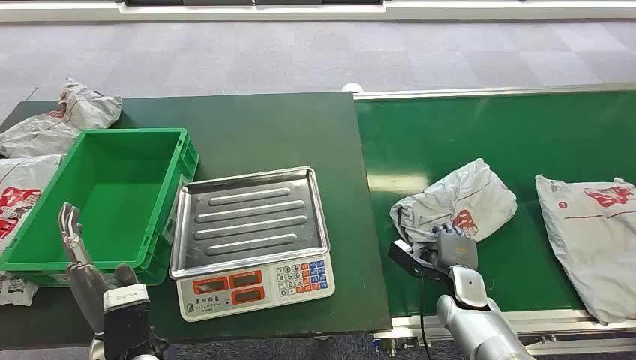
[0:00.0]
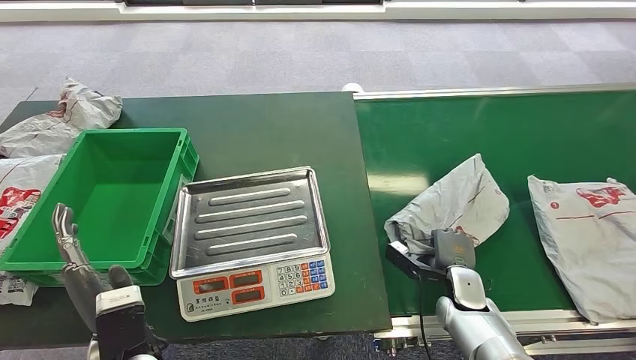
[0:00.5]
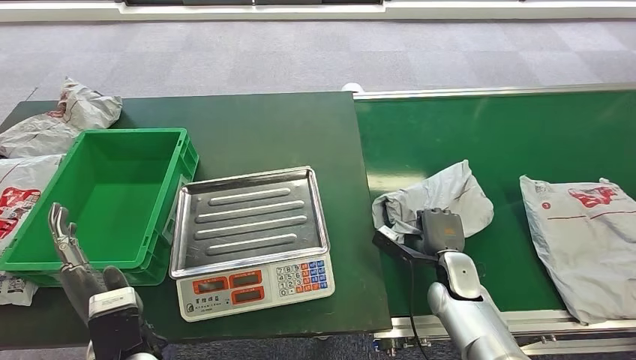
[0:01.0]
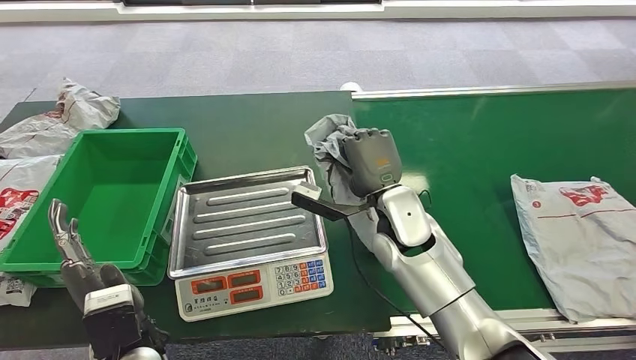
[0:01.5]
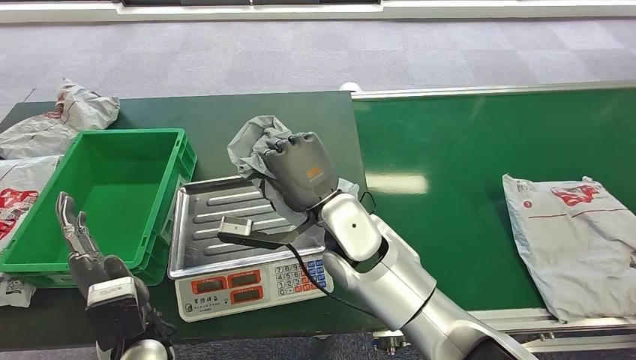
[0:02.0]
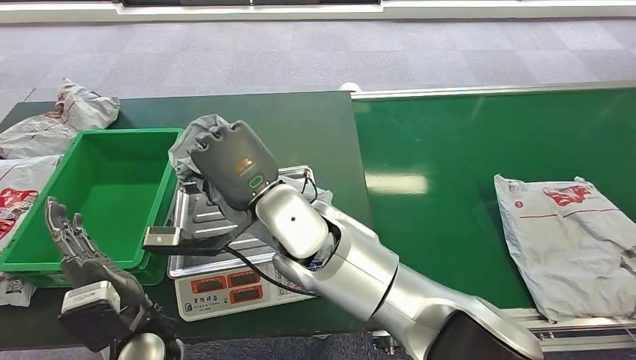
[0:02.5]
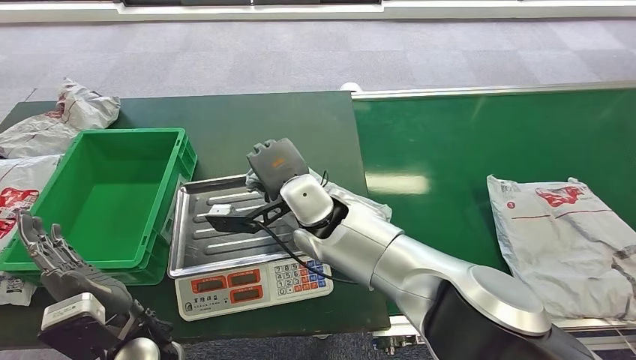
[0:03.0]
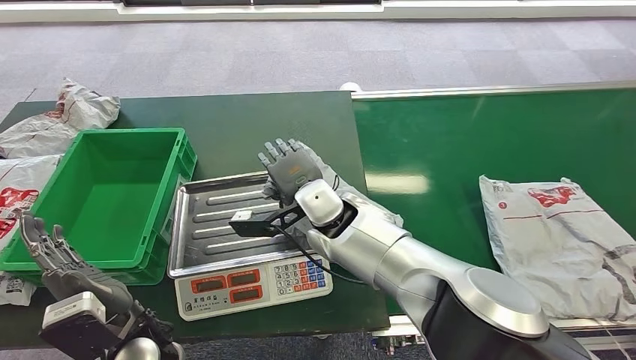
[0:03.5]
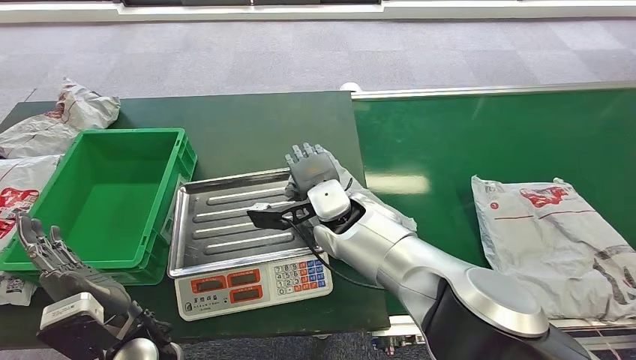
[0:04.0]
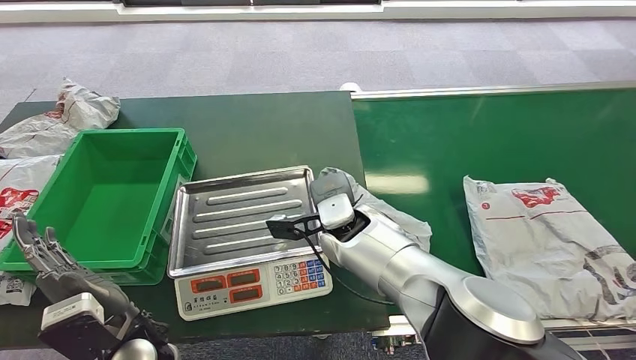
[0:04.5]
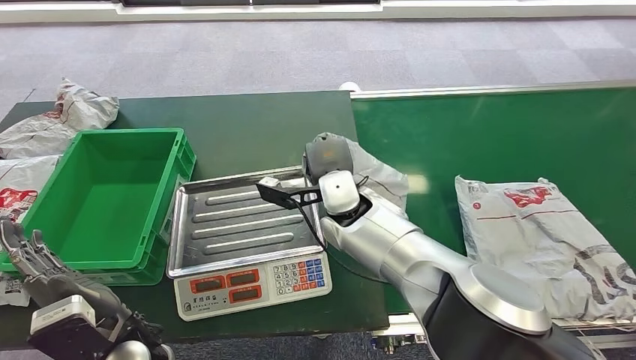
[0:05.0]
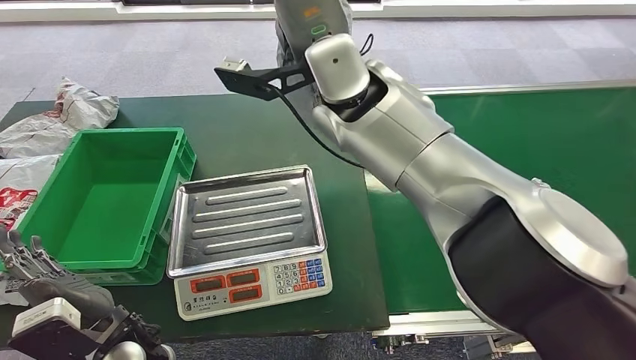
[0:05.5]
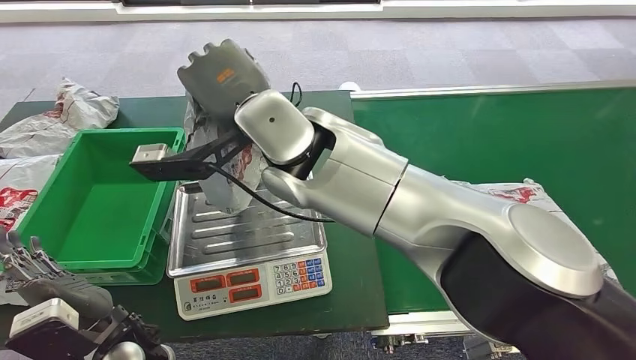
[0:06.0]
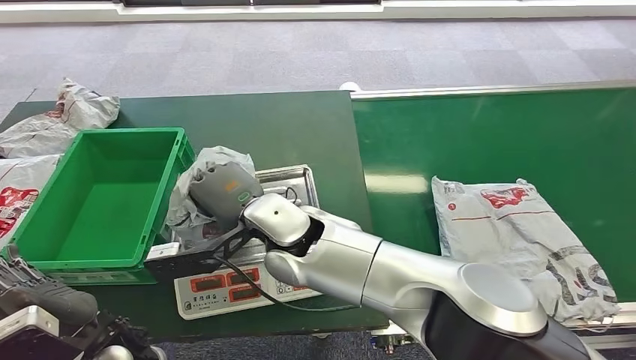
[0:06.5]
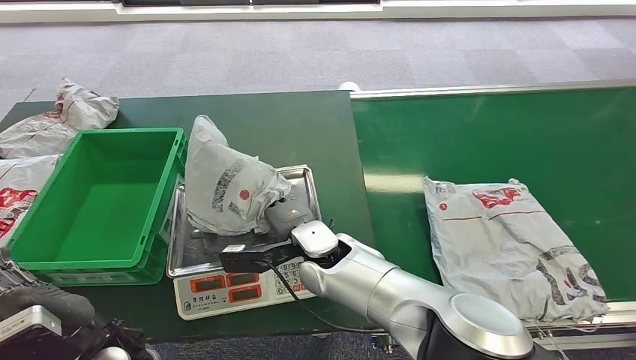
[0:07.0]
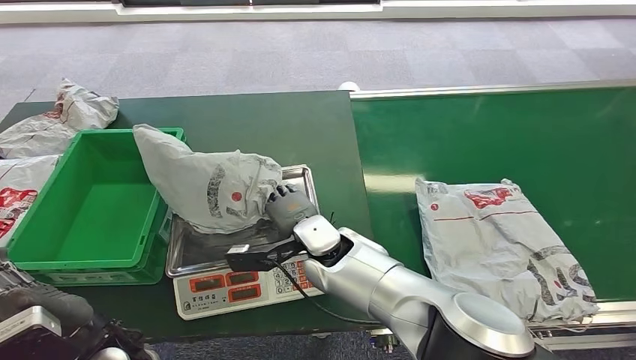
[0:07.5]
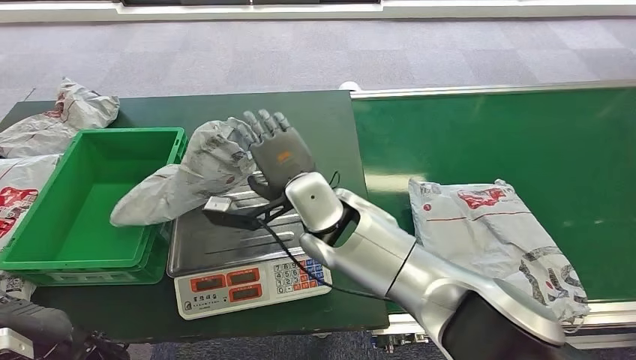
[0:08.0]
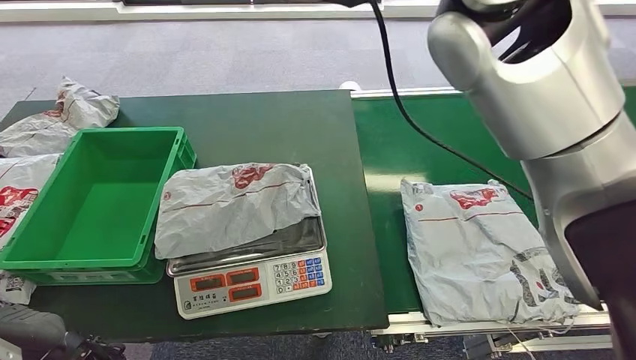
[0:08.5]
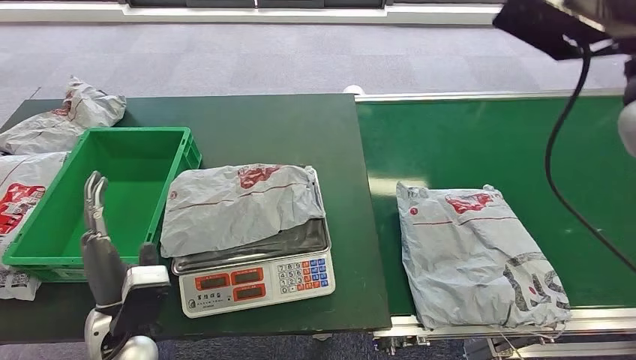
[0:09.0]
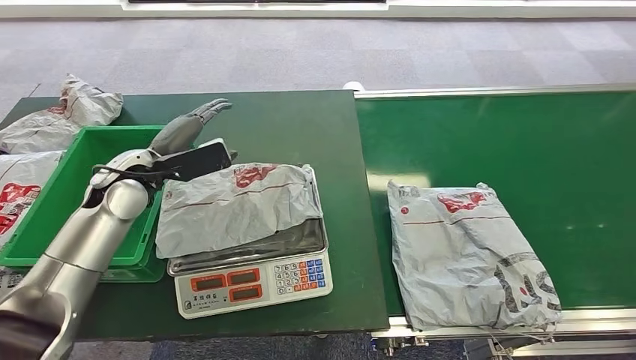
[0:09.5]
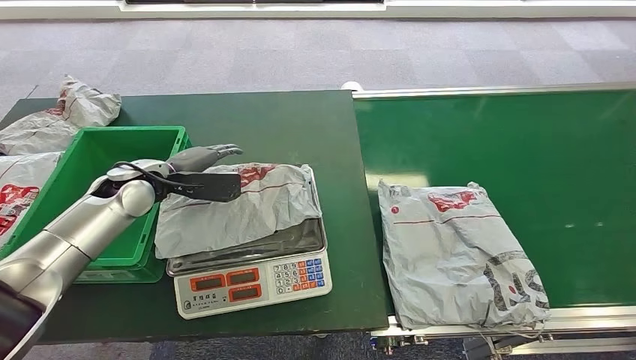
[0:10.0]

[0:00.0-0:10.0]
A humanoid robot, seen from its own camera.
Step, 0:00.0 to 0:01.5: Pick up the package from the conveyor belt.
Step, 0:02.0 to 0:08.0: Place the package onto the inbound machine.

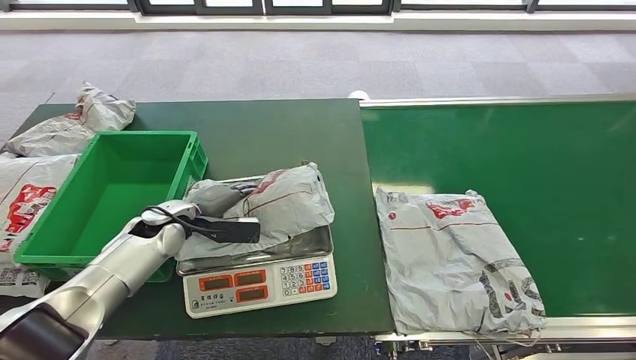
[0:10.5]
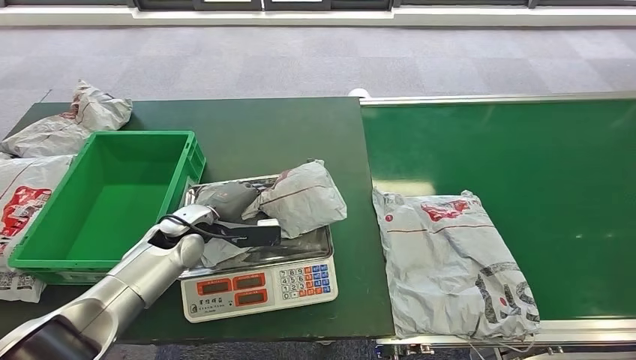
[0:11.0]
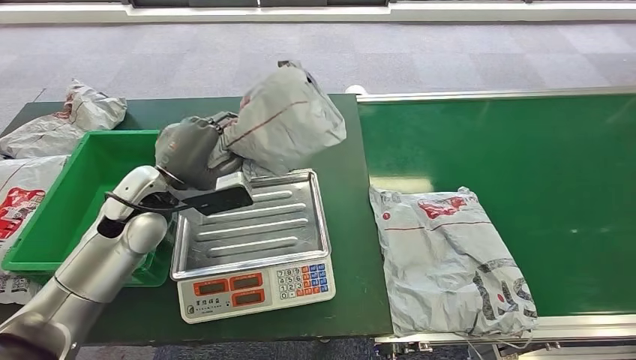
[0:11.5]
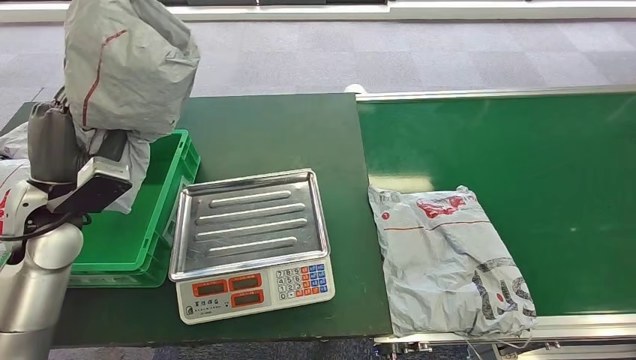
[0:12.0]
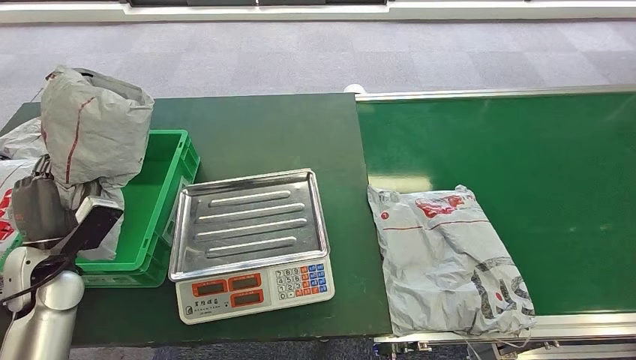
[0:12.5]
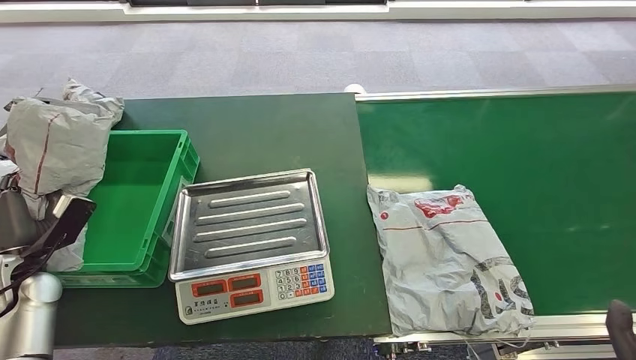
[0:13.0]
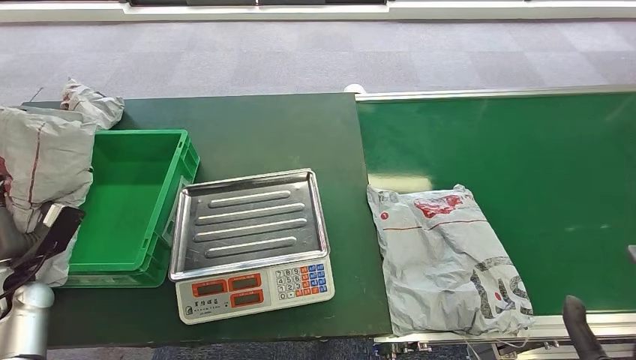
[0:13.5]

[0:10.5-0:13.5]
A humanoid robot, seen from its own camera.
Step, 0:12.0 to 0:13.5: Place the package into the parcel locker.
0:12.0 to 0:13.5: The left hand heads downward, to the left and backward, covering some 25 cm. Meanwhile the right hand moves forward, approximately 5 cm.
